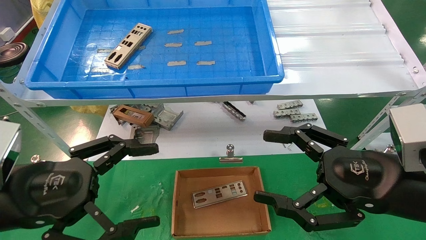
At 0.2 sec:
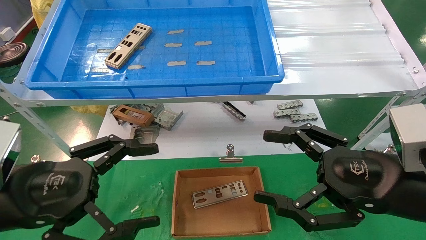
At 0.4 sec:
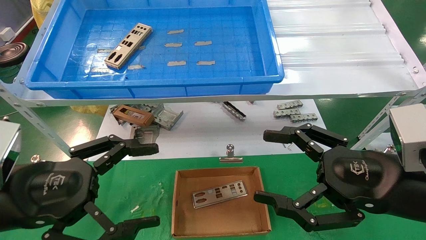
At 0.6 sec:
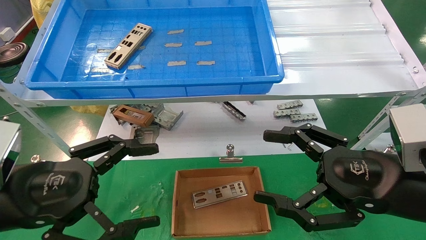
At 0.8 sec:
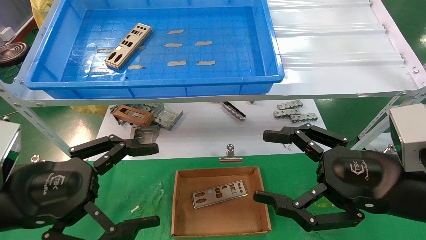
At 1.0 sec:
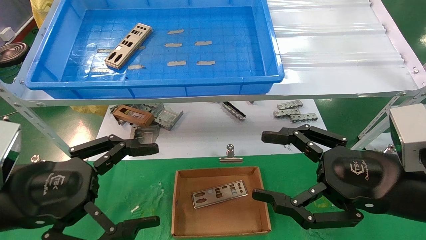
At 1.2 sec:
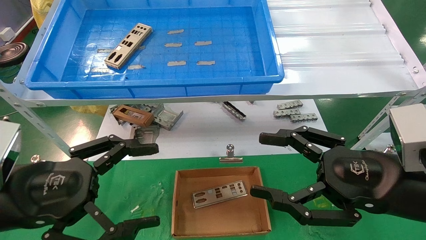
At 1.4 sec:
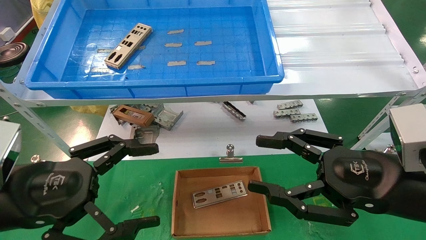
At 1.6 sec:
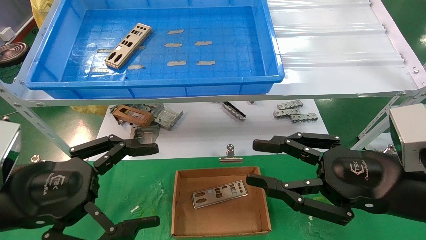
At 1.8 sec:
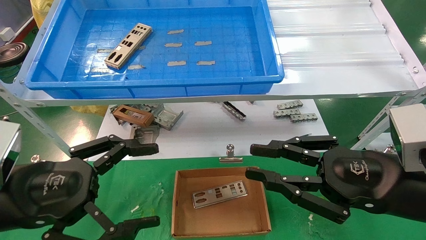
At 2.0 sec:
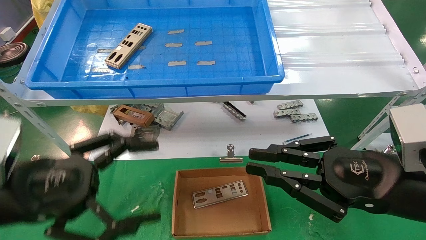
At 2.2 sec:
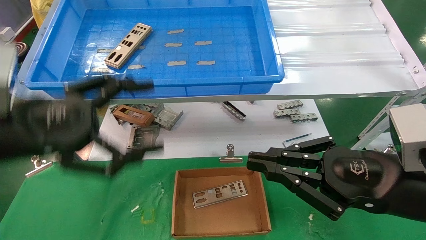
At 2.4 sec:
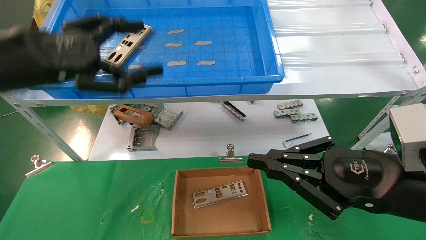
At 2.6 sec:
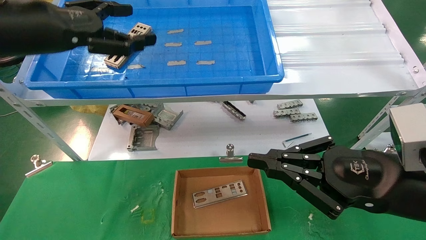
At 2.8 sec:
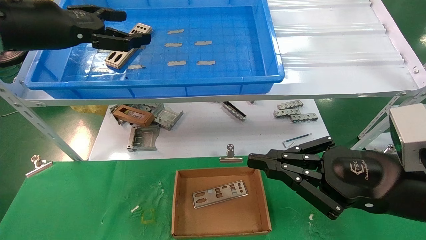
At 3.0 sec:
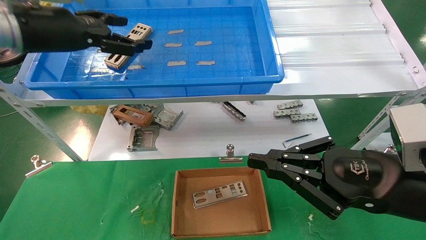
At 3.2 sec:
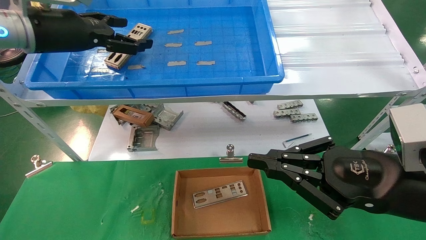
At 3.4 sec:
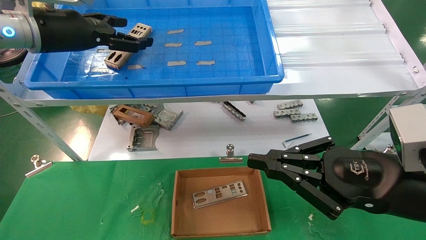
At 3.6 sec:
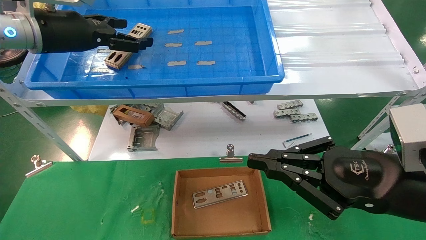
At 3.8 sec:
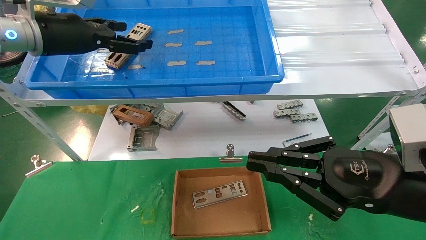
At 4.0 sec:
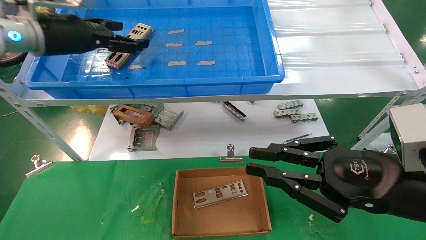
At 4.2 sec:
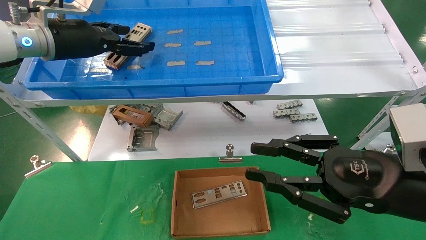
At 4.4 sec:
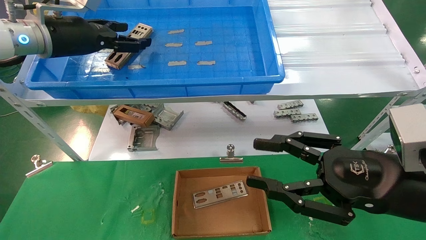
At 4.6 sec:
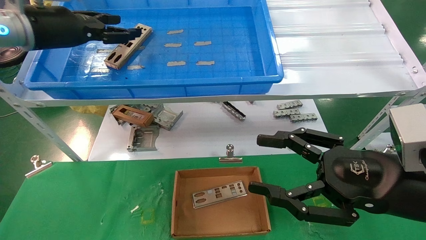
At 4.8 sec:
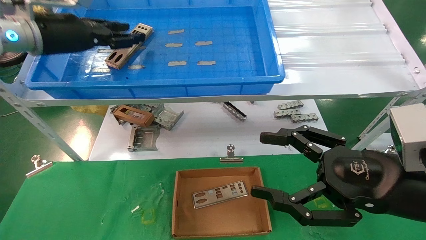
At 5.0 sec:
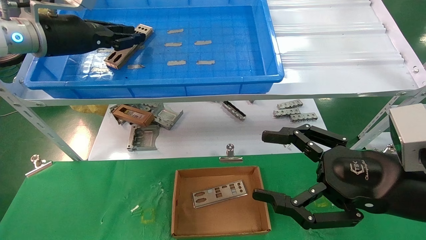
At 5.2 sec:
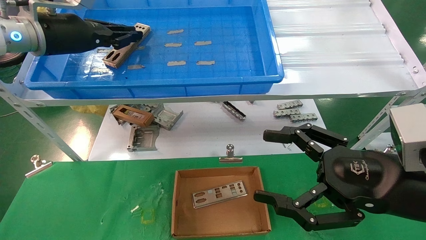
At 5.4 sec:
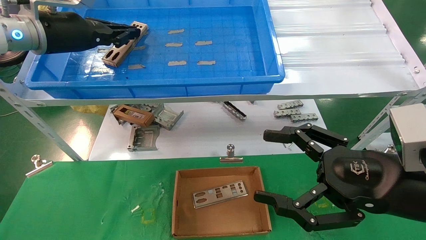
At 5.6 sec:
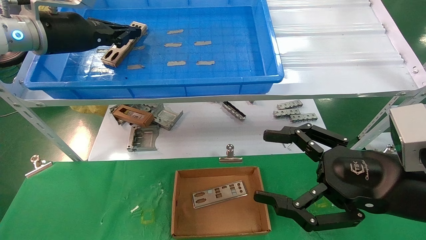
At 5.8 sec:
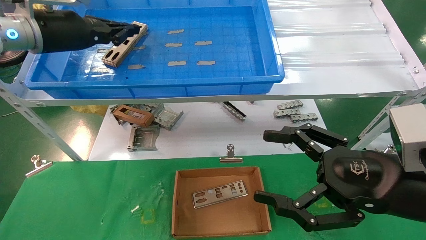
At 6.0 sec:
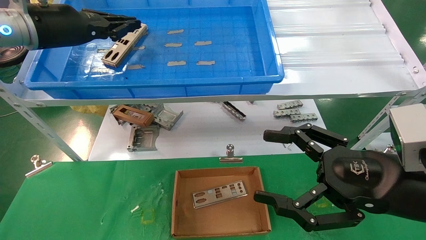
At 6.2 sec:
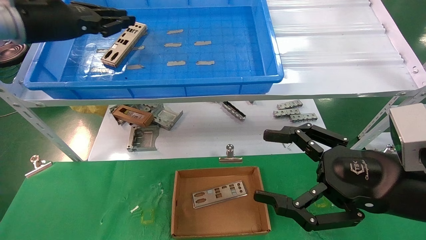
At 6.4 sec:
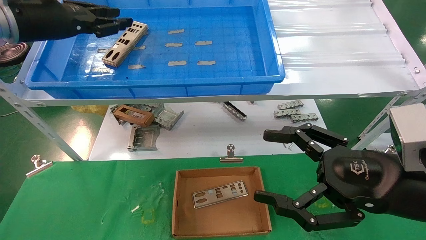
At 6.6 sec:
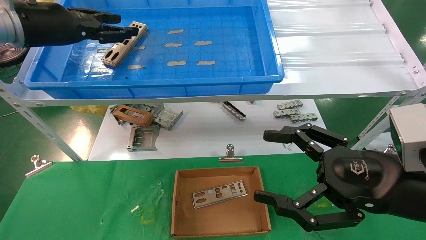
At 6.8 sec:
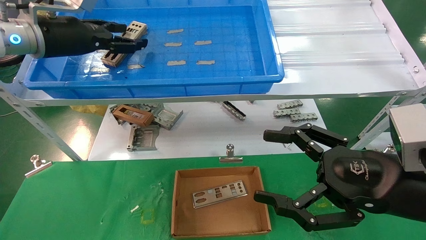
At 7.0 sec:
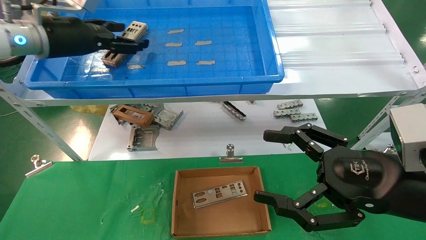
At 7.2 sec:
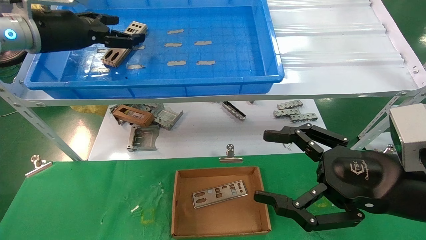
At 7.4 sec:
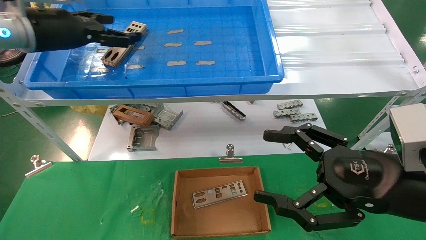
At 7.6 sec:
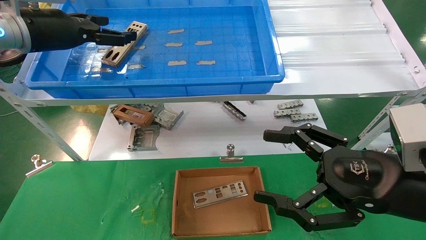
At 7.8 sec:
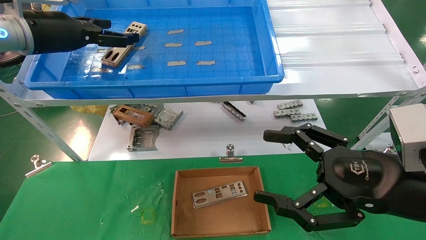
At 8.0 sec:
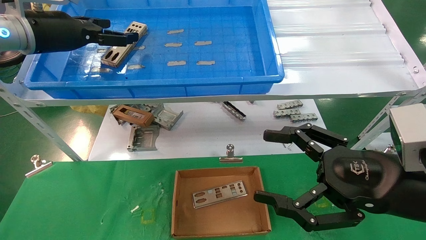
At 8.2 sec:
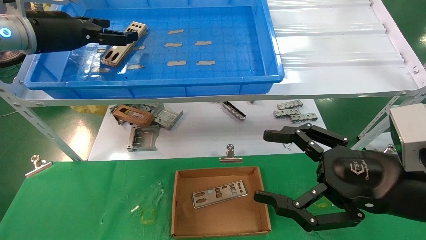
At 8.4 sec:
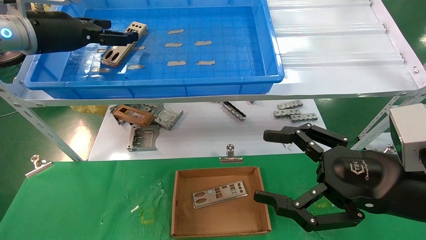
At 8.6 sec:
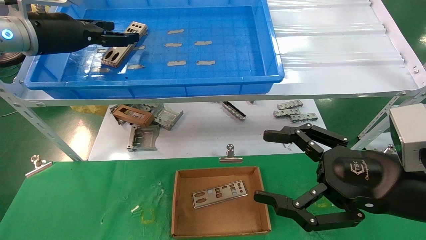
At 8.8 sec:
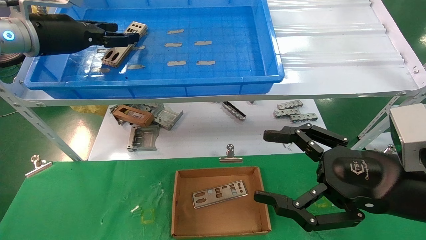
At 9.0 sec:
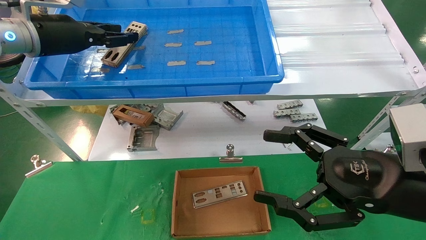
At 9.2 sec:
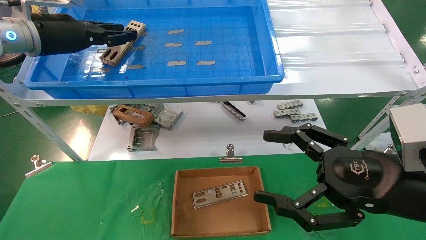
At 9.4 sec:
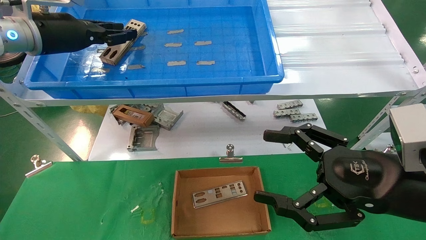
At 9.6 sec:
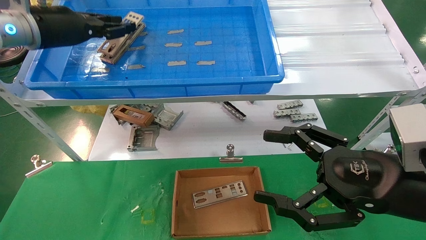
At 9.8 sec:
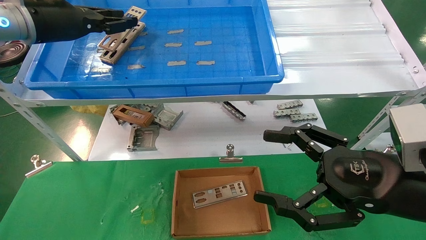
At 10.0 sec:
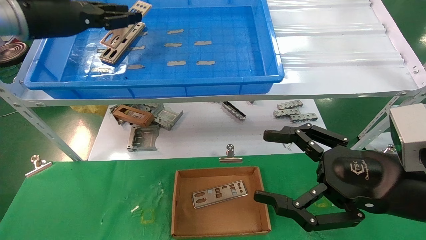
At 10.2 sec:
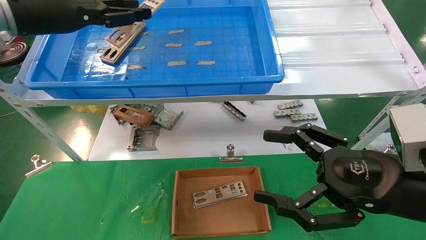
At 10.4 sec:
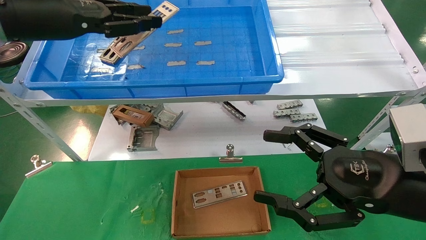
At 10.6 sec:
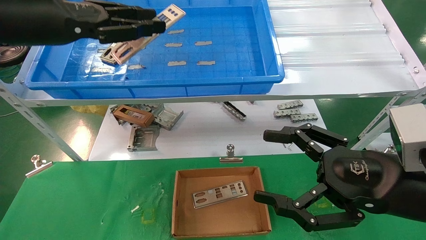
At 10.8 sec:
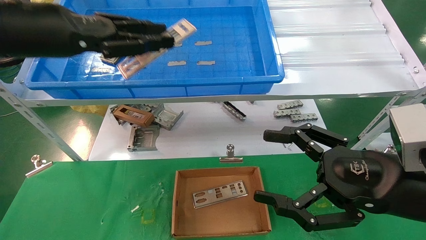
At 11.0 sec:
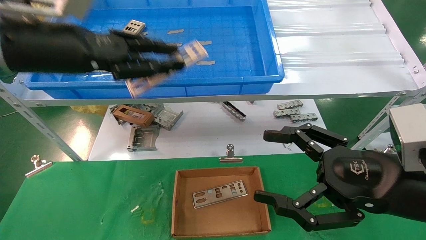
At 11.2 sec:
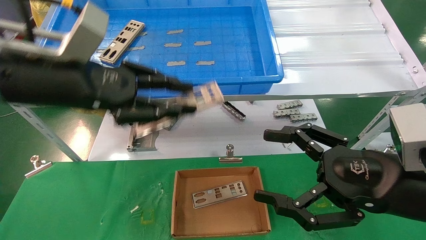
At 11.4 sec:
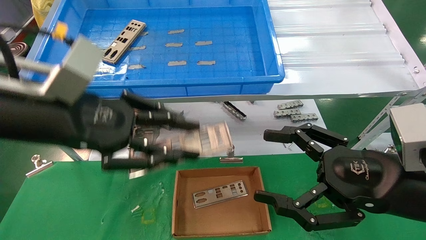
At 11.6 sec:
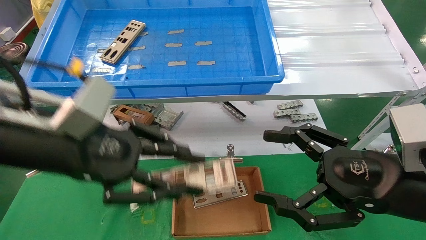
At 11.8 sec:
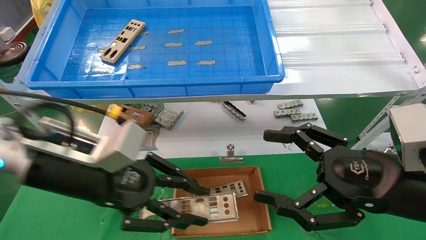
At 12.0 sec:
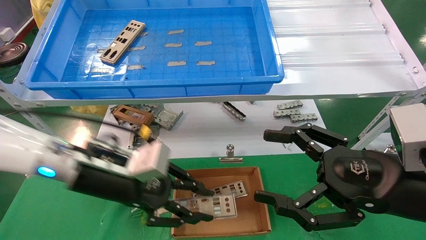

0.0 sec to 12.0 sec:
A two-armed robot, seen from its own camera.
Task of the whole recording: pick up the parts on the tray and put them in the cardboard box.
Step, 2.6 sec to 9.2 sec: Pick up the IO bracket from the container box.
0.0 sec to 1.6 sec: The right gripper closes up.
1.6 sec to 3.0 sec: The left gripper is displaced upward and forward by some 25 cm, while the right gripper closes its fingers.
3.0 sec to 4.4 sec: The right gripper opens its fingers.
4.4 sec to 6.0 sec: The right gripper opens. Meanwhile the left gripper closes its fingers.
6.0 sec to 7.6 sec: The left gripper opens up.
7.6 sec to 9.0 sec: The left gripper closes up.
9.0 sec to 10.4 sec: The left gripper is displaced backward by some 10 cm.
10.4 sec to 12.0 sec: The left gripper moves downward and to the right, some 25 cm.

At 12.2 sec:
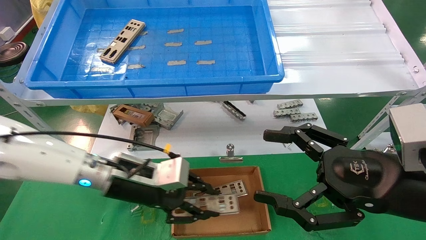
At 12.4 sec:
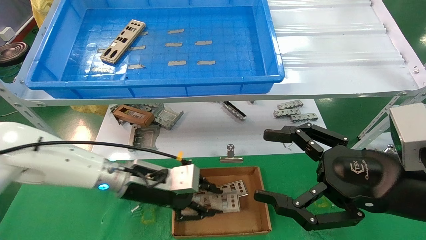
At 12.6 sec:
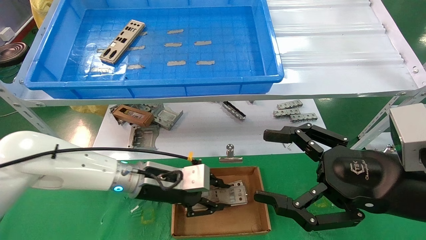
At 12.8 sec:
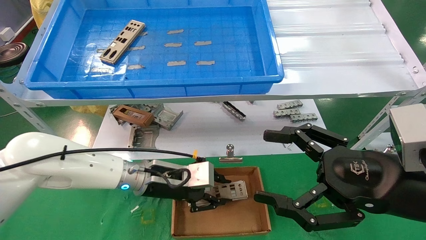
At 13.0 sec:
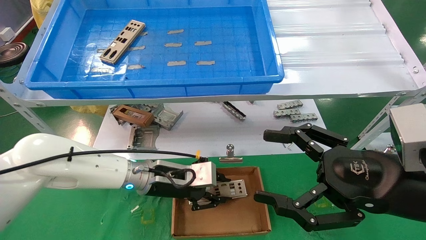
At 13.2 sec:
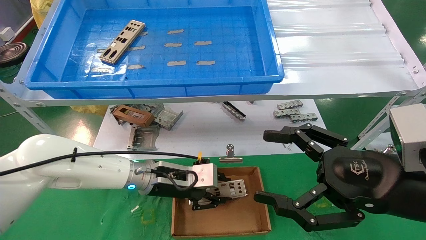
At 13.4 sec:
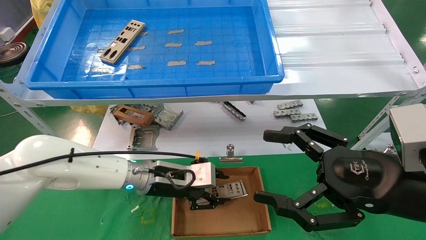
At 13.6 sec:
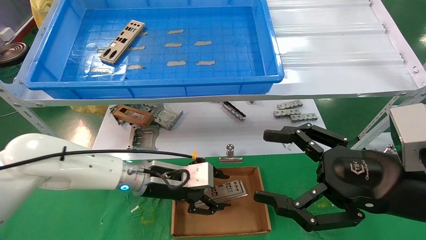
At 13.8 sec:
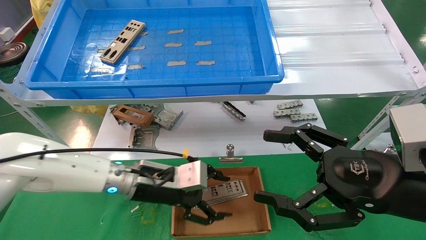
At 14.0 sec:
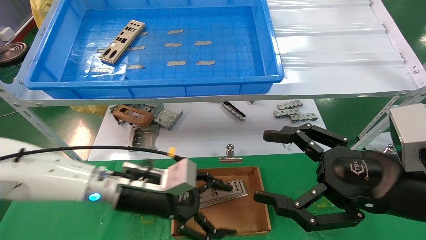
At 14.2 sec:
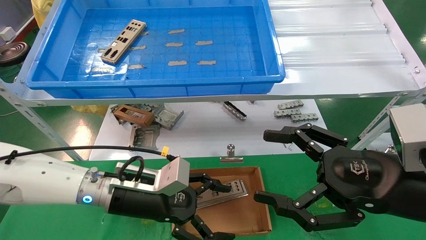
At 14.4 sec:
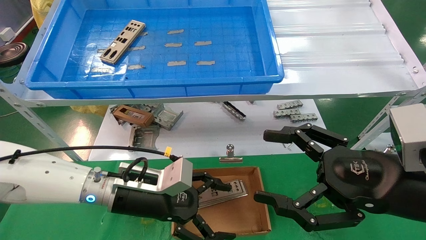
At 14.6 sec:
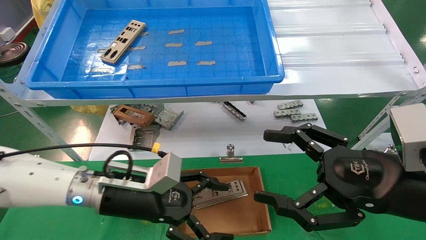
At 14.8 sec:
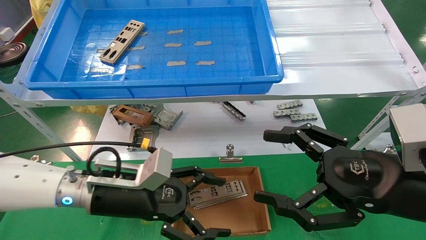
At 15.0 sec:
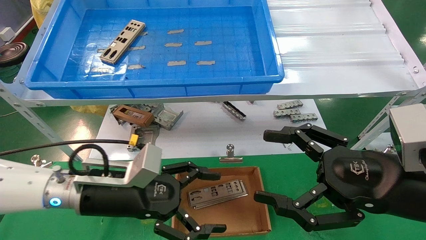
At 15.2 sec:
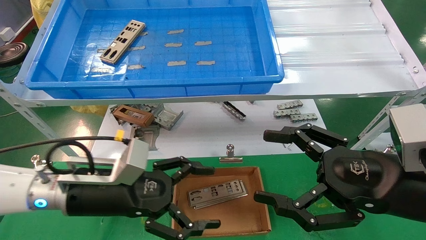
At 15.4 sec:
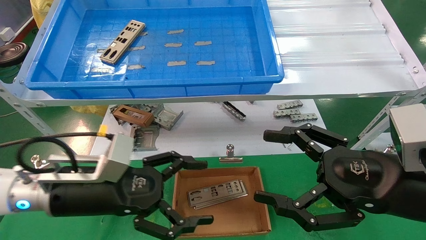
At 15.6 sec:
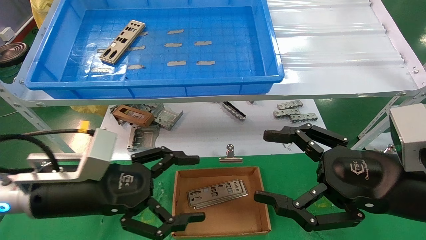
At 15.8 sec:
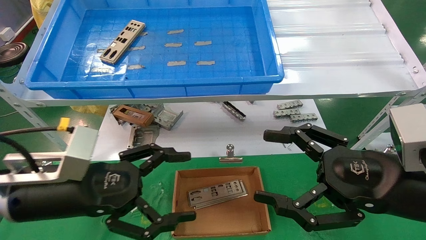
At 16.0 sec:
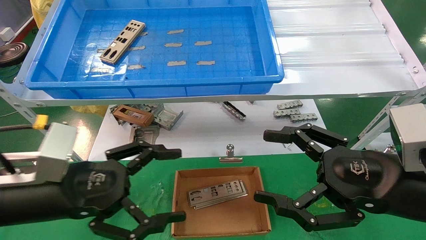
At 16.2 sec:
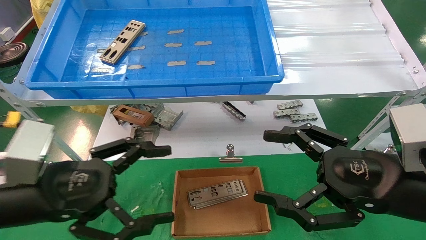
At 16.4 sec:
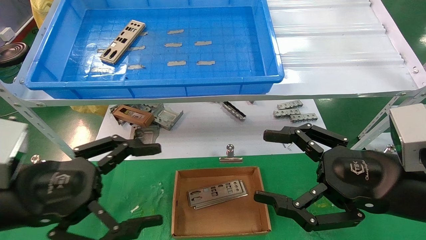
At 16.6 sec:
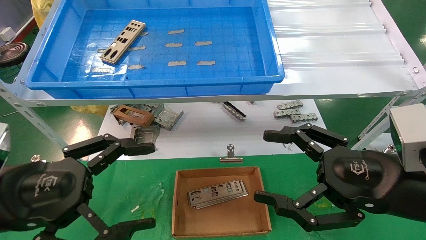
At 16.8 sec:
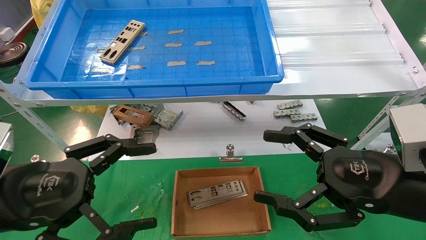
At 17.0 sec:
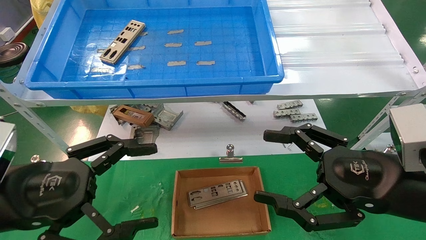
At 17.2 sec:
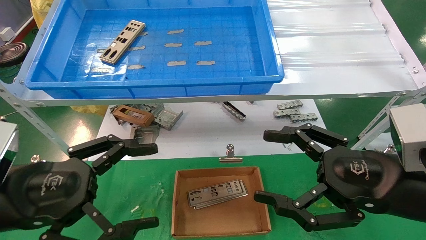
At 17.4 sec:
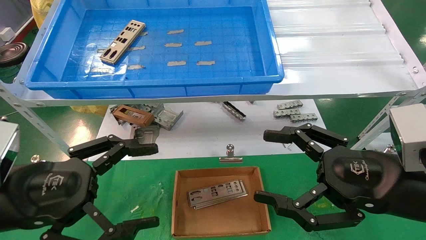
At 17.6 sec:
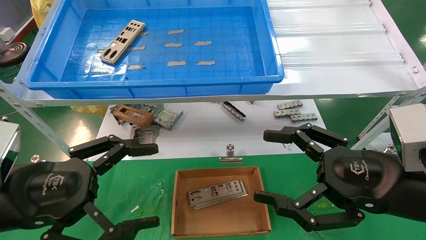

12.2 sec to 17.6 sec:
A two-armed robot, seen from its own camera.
Task of the whole recording: pick up the parts on the tray and put them in the cardboard box.
12.2 sec to 13.6 sec: The left gripper shifts by about 5 cm.
13.6 sec to 15.0 sec: The left gripper travels backward and to the left by about 10 cm, and opens.
15.0 sec to 16.2 sec: The left gripper is displaced backward and to the left by some 10 cm.
16.2 sec to 17.6 sec: There are only small adjustments of the grippers.
